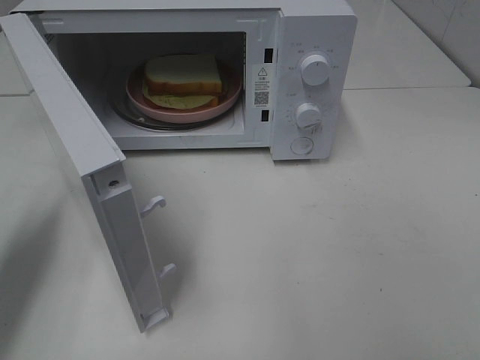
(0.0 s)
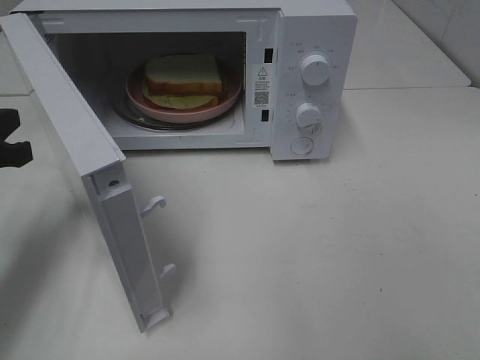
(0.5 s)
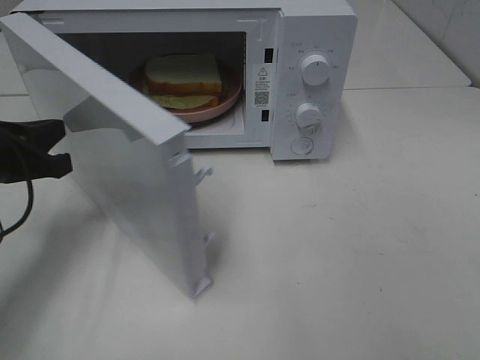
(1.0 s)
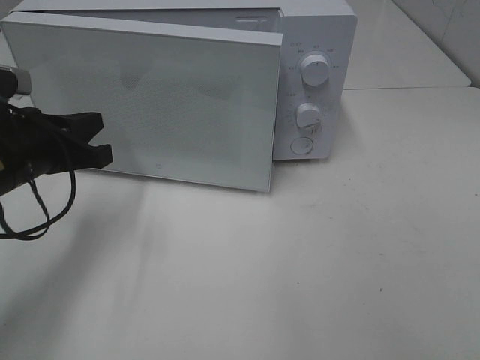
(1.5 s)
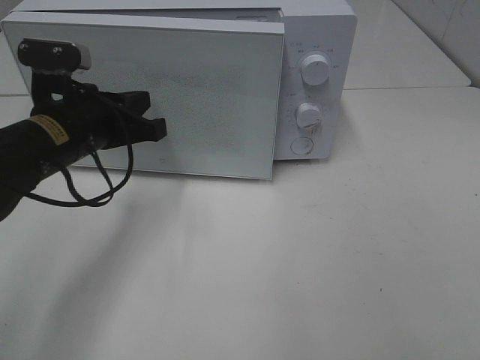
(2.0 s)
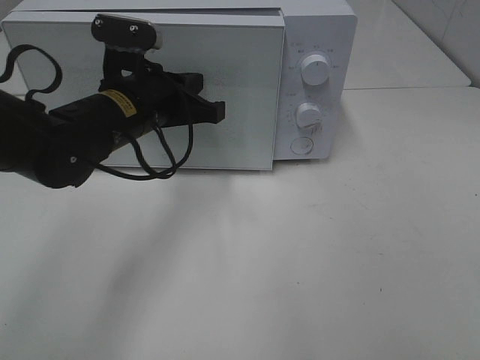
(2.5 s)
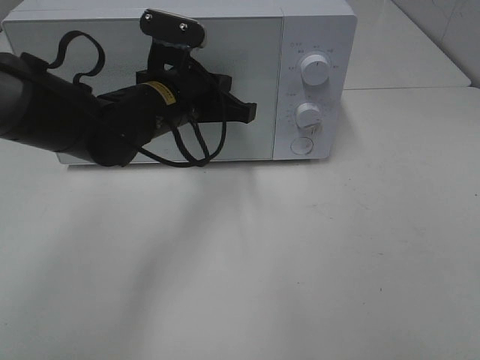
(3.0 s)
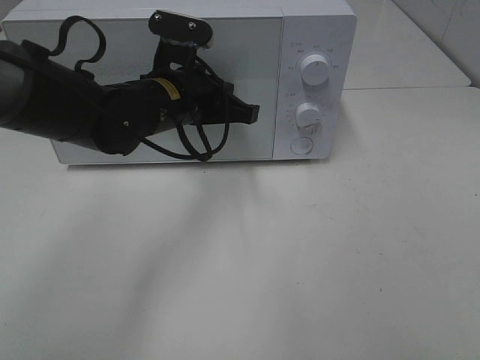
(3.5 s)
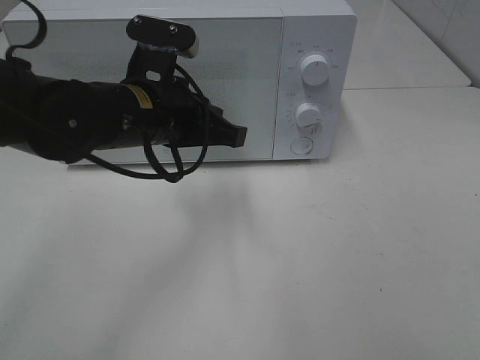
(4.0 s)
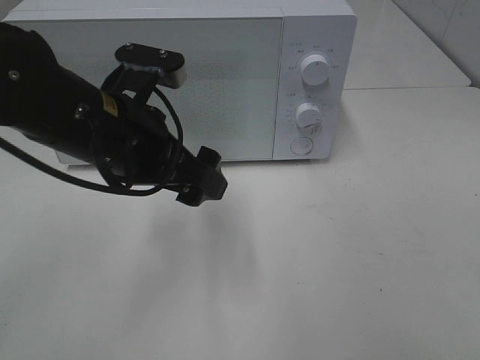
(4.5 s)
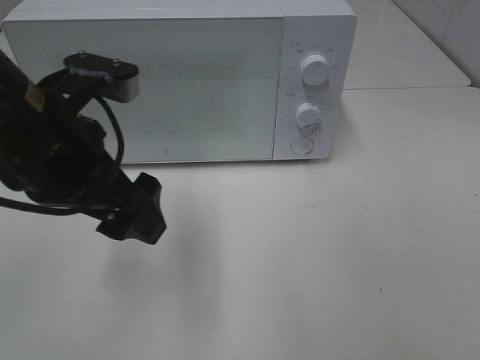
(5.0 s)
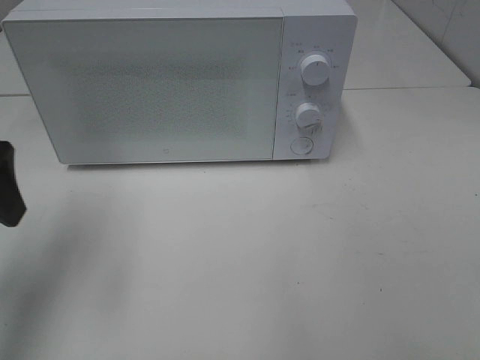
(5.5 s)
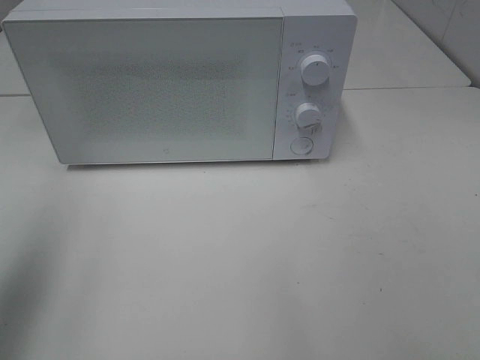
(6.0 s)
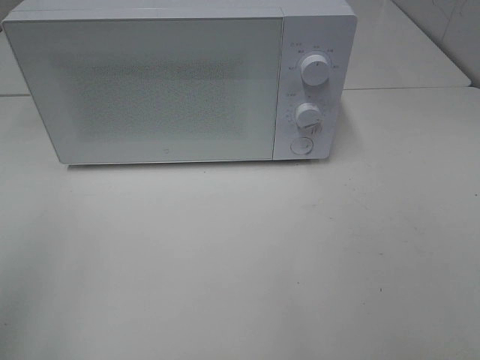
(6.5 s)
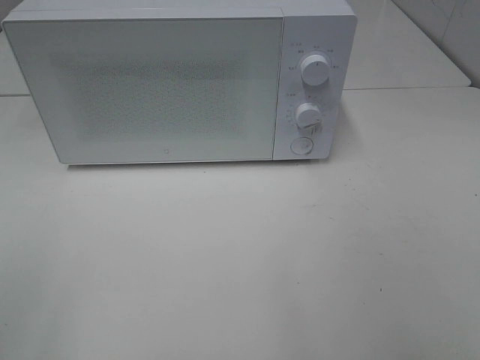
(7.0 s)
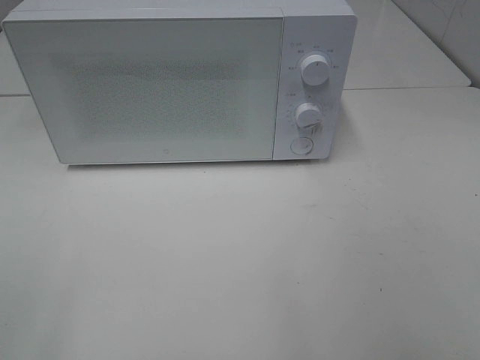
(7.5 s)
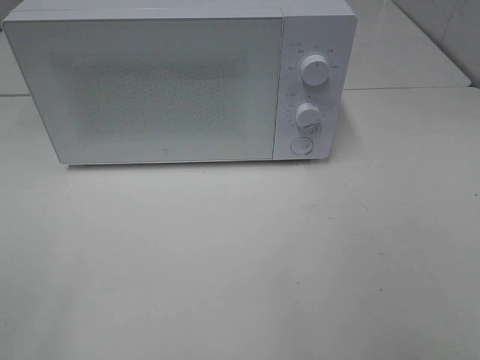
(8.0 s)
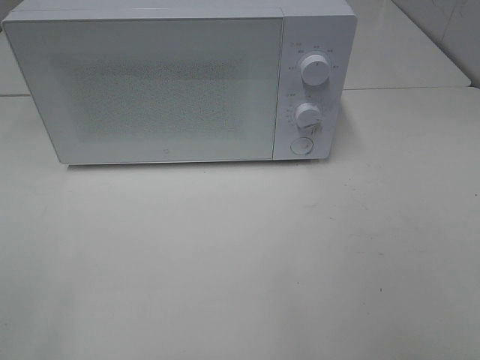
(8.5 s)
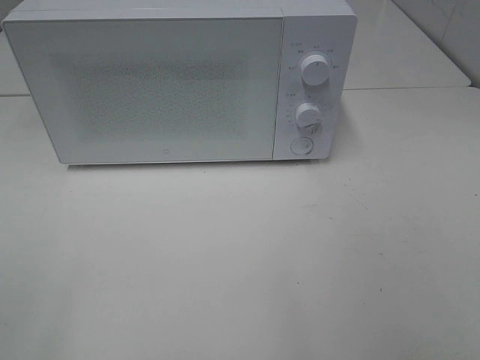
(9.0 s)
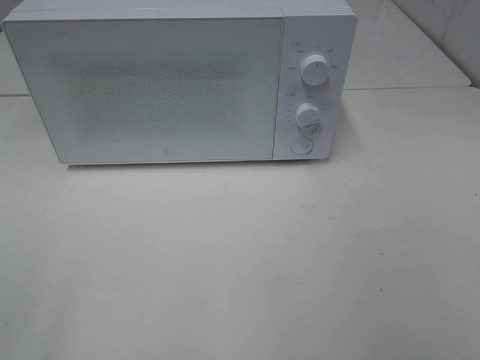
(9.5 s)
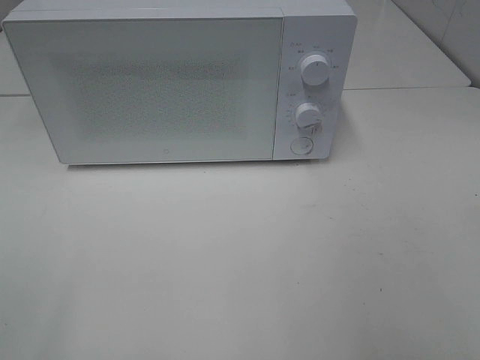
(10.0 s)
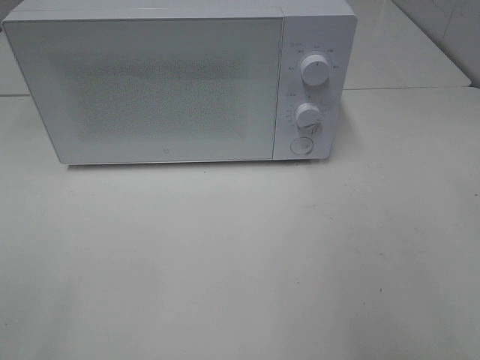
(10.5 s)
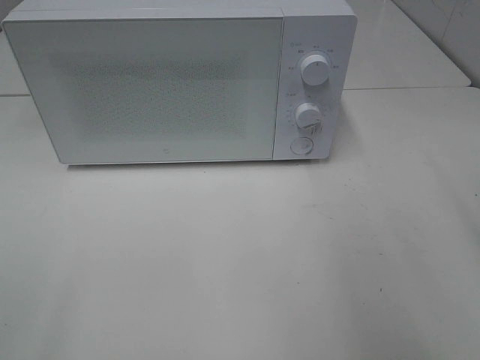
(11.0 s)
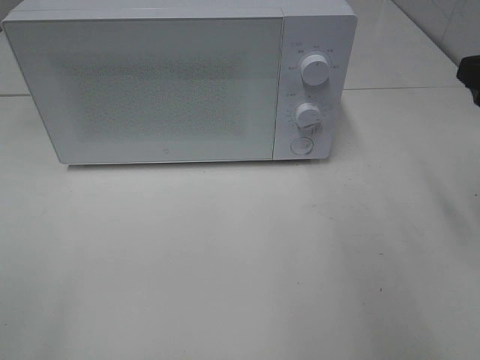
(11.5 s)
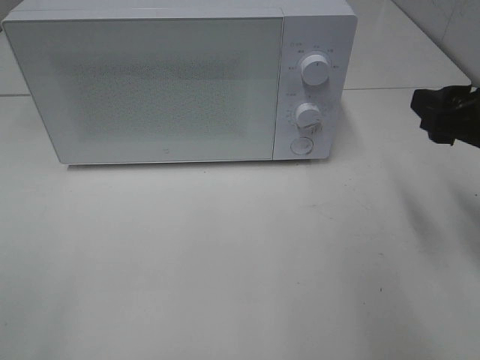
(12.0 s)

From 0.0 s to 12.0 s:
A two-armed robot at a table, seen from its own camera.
Task of the whole recording: Heat Sandwich.
Step, from 0.0 s to 4.0 s: Left hand: close the microwave door.
From 0.0 s to 2.0 s: The left gripper shifts some 15 cm to the right and forward.
From 2.0 s to 4.0 s: The left gripper moves to the right, about 10 cm.
From 4.0 s to 6.0 s: The left gripper goes roughly 30 cm to the left, upward and backward, and opens up.
From 6.0 s to 8.0 s: The left gripper shifts approximately 15 cm backward.
From 10.0 s to 12.0 s: The right gripper travels forward and downward by some 20 cm.

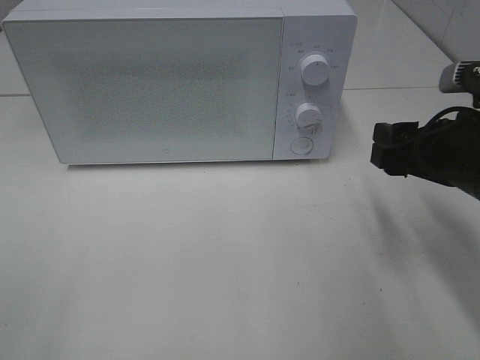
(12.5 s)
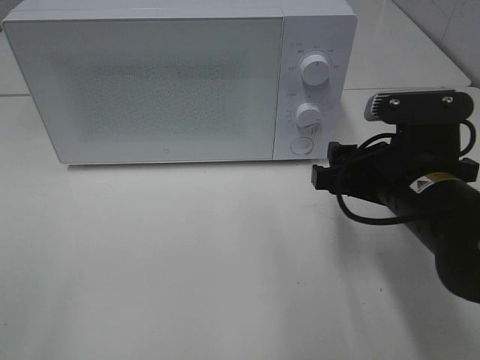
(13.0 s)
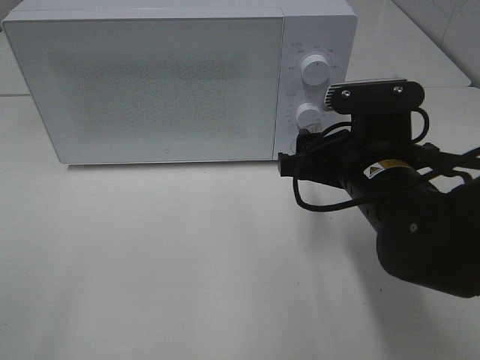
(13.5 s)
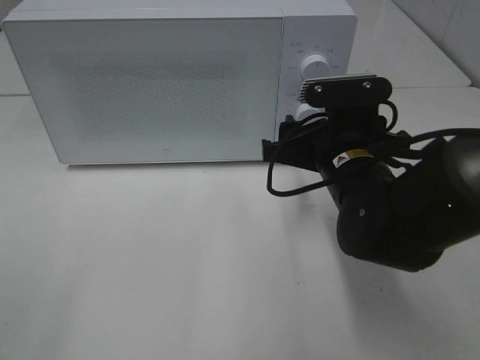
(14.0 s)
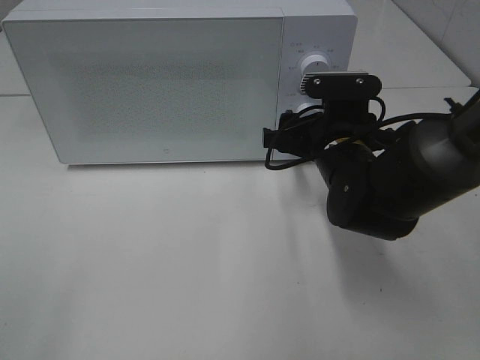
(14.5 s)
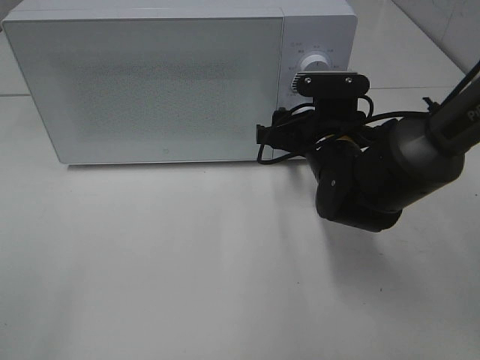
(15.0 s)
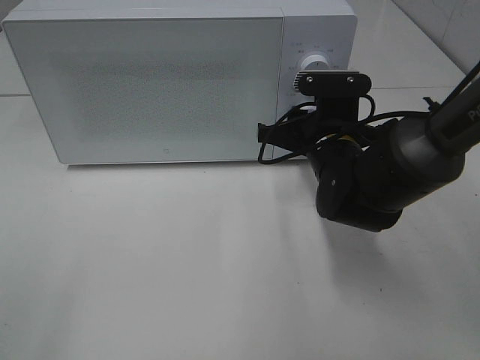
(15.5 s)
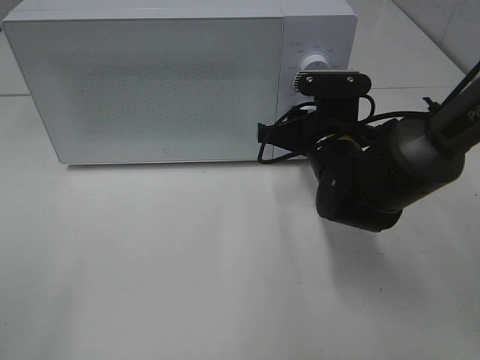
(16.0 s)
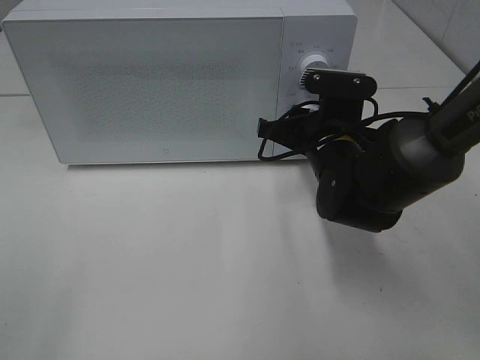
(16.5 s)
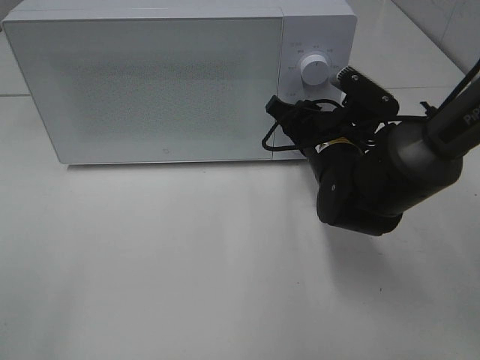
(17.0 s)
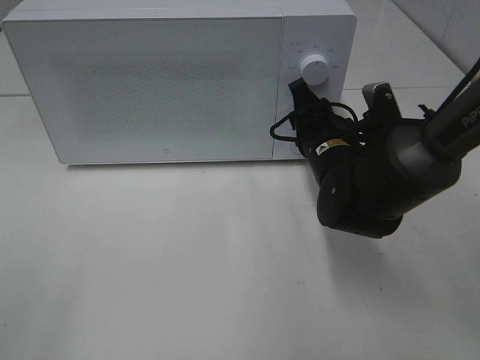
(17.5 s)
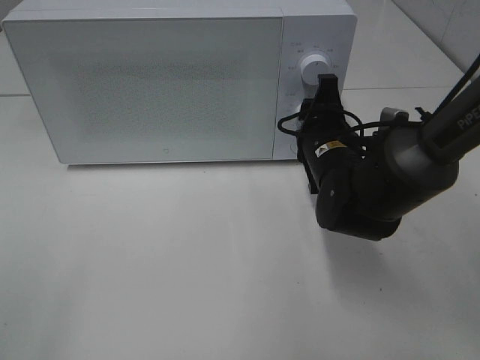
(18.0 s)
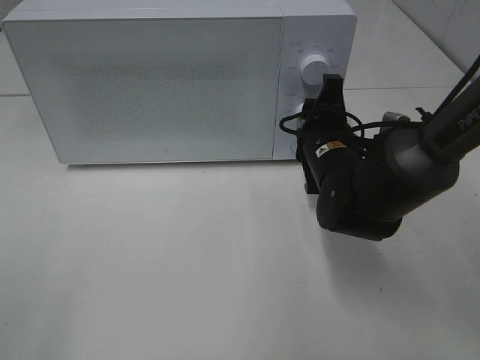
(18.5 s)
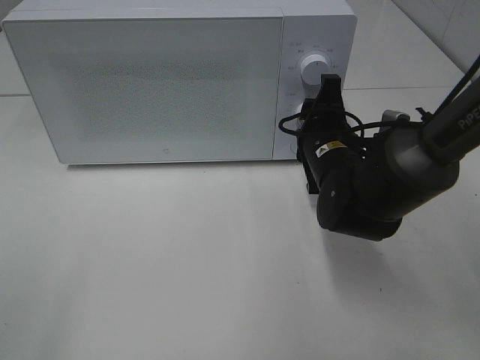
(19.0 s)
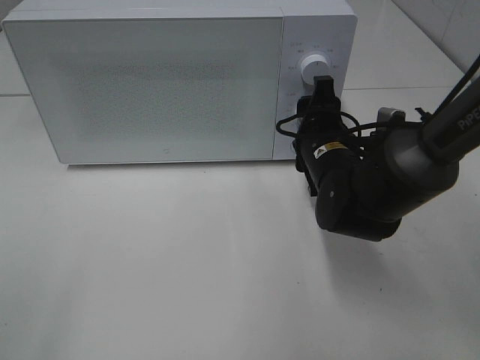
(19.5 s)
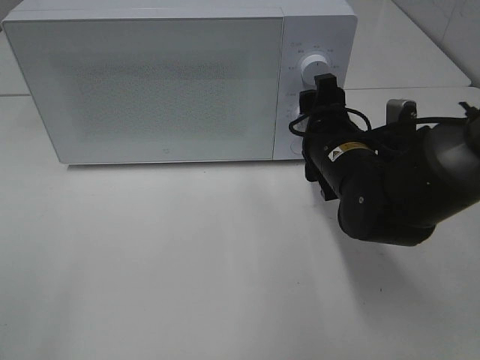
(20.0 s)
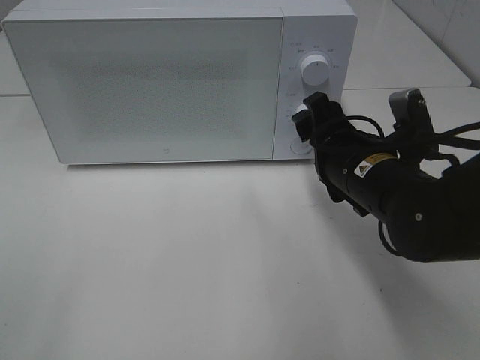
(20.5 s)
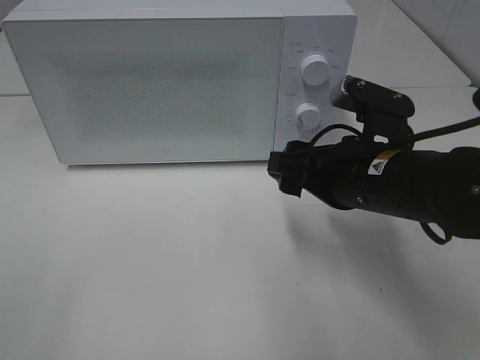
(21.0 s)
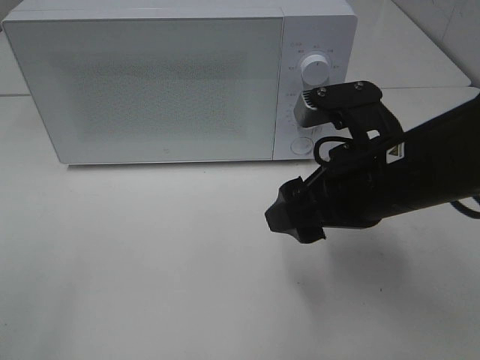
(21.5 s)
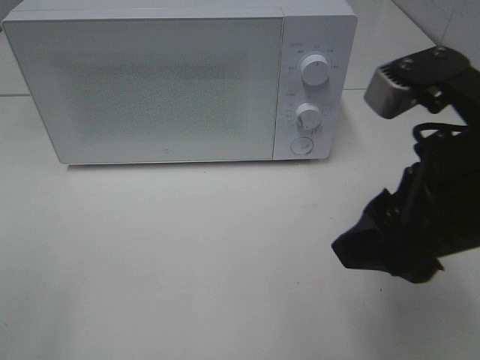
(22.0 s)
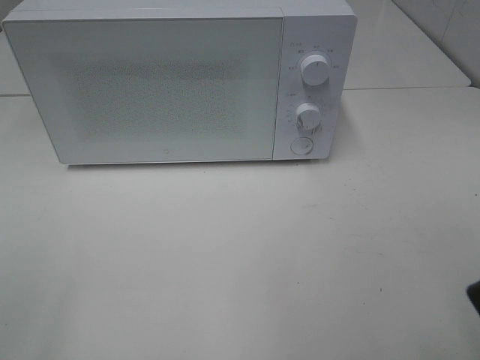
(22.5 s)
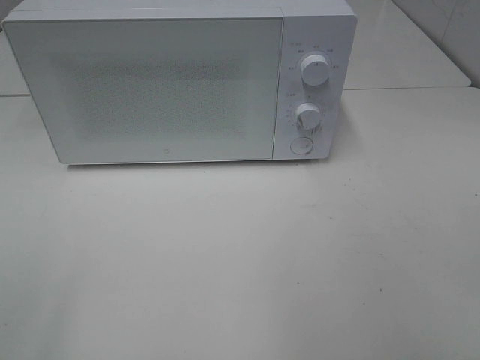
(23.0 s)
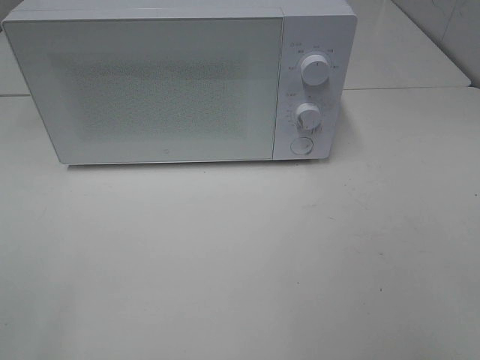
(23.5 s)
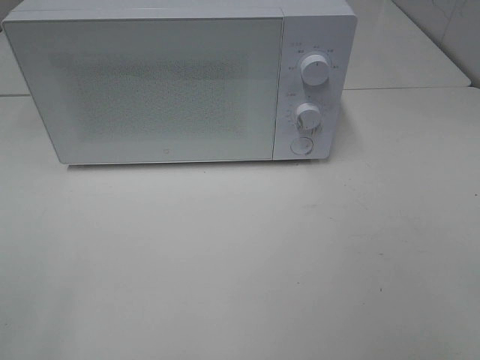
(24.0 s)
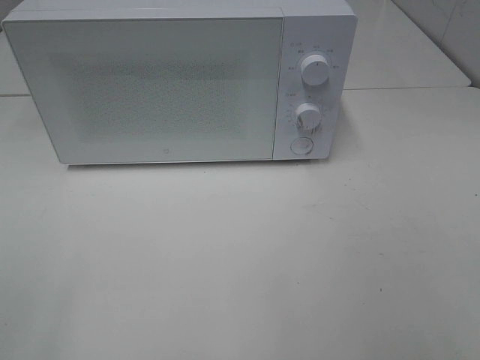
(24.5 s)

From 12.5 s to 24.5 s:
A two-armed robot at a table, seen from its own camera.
Task of the whole recording: Heat Sandwich.
Step, from 12.5 s to 19.5 s: Right hand: twist timer button.
From 12.5 s to 14.5 s: The right gripper moves to the left, forward and downward, some 15 cm.
From 14.5 s to 16.5 s: The right gripper closes.
From 18.5 s to 20.5 s: The right gripper travels backward by approximately 5 cm.
From 20.5 s to 22.5 s: The right gripper heads backward, upward and to the right, covering about 25 cm.

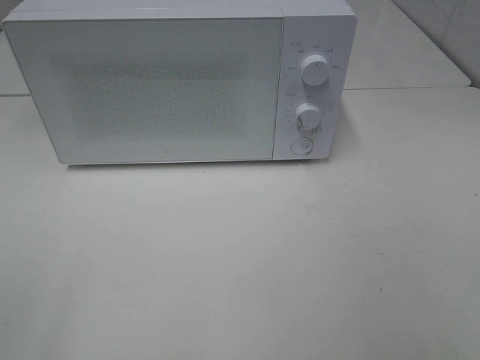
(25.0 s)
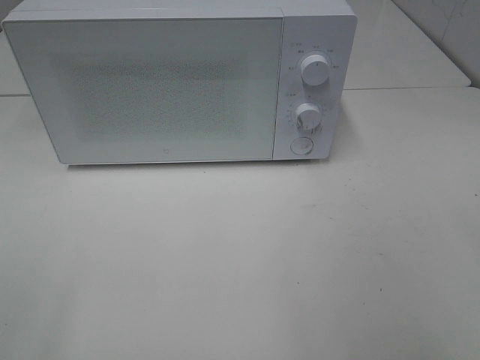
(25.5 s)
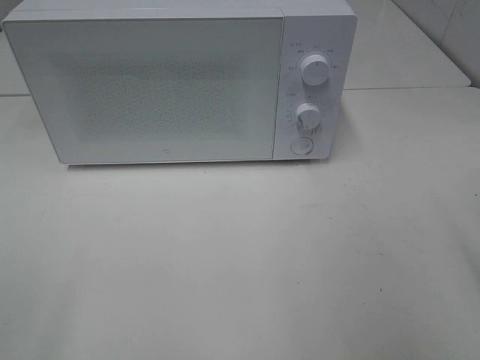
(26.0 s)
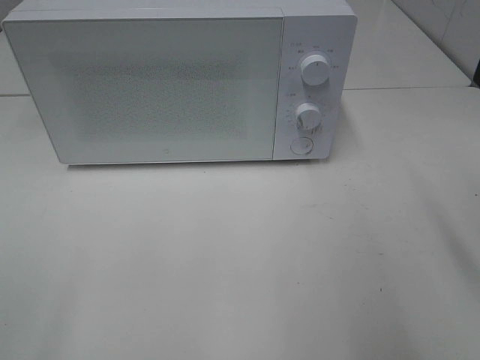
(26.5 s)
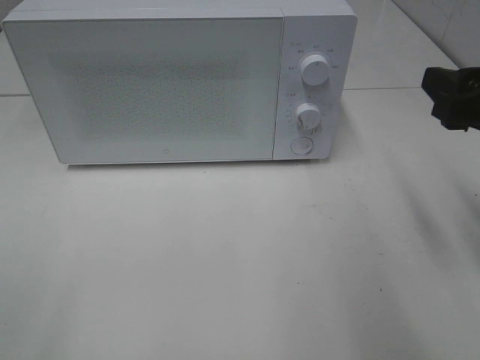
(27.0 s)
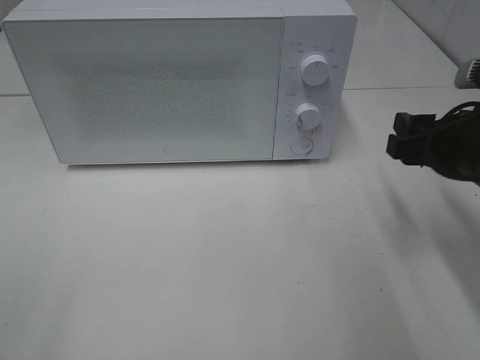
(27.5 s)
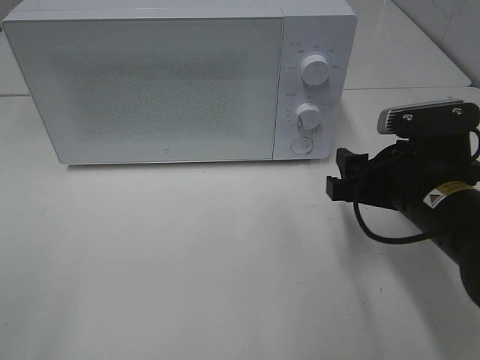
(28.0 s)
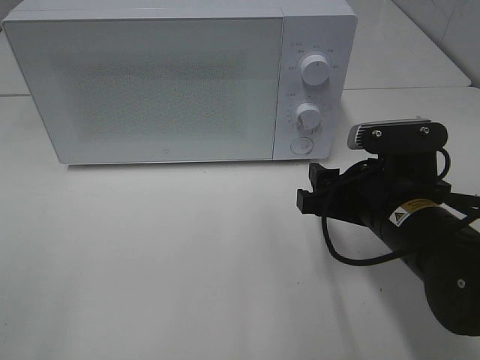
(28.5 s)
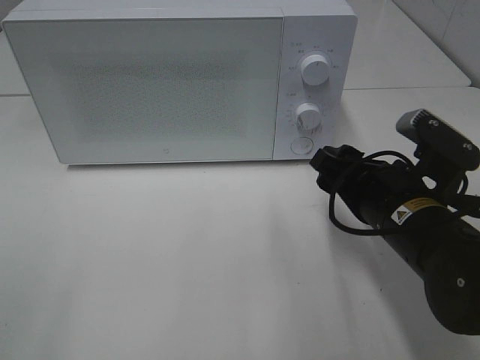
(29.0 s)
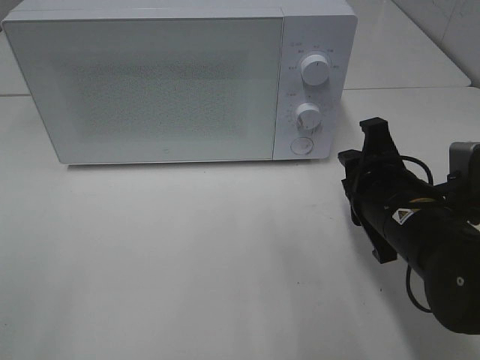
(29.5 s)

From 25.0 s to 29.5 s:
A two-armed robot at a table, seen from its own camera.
Task of the whole recording: Heat Sandwich.
From 25.0 s to 27.0 s: The right gripper goes approximately 20 cm forward.
From 27.0 s to 29.5 s: The right gripper heads downward and to the left, covering some 15 cm, and closes its fingers.
